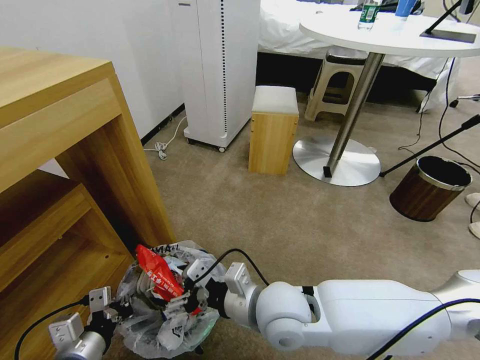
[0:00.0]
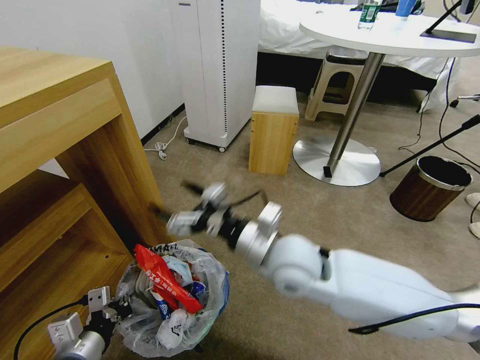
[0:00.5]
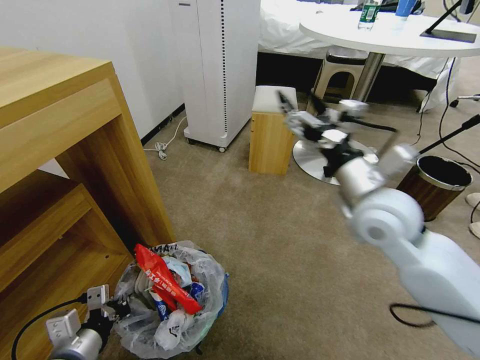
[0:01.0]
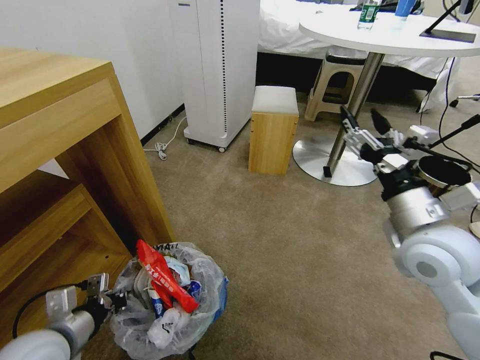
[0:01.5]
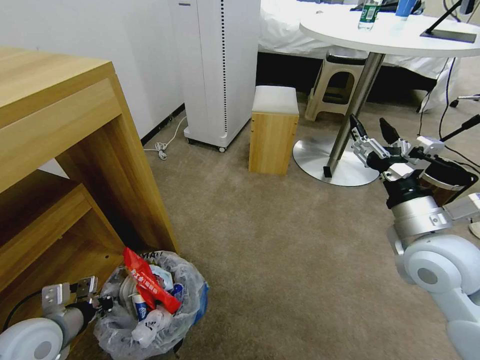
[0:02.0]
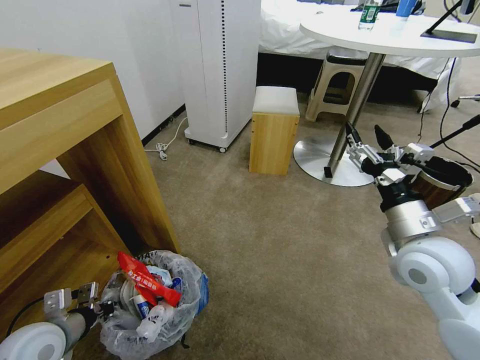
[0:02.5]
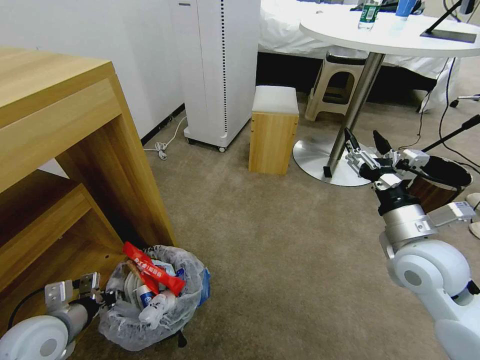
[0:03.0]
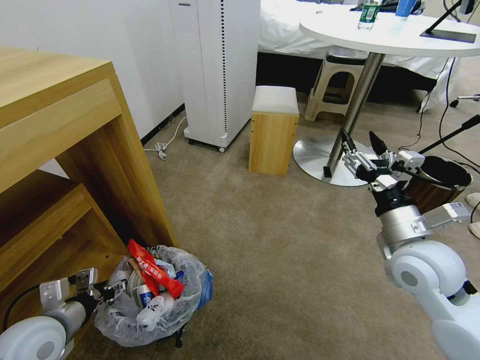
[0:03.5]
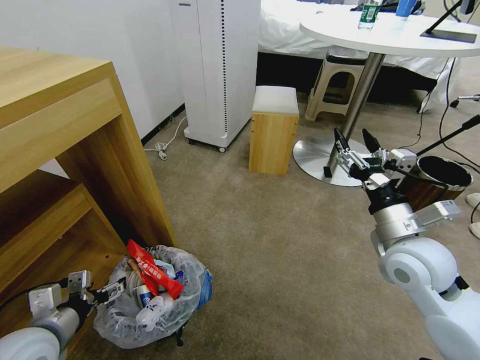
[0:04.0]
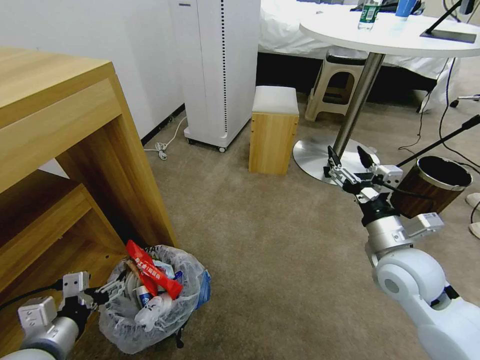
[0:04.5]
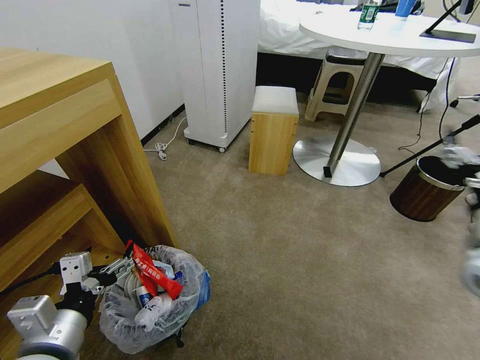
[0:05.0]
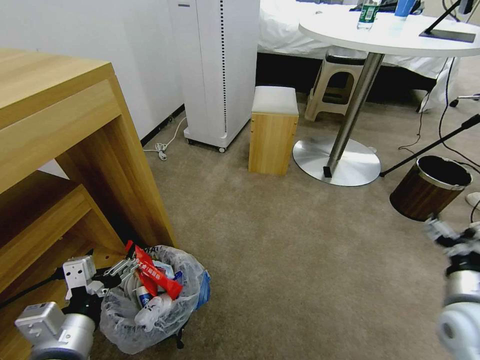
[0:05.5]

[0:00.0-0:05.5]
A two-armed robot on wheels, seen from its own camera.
Task of the whole recording: Pick up the trash bin and place the garbage on the floor into it.
0:00.0 to 0:02.0: The right gripper goes about 25 cm to the right and upward. The left gripper goes roughly 10 cm to the left and forward.
0:02.0 to 0:03.5: The left gripper opens.
0:03.5 to 0:05.5: The left gripper heads to the right, backward and upward, covering roughly 15 cm. Meanwhile the right gripper heads to the right, downward and backward, covering about 15 cm.
